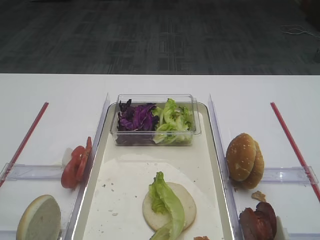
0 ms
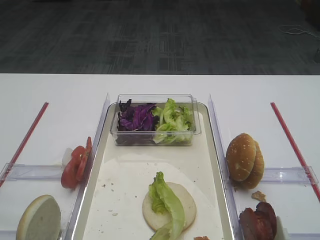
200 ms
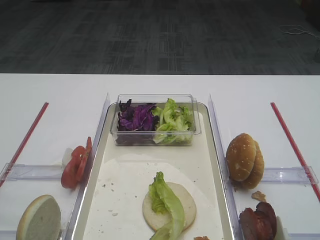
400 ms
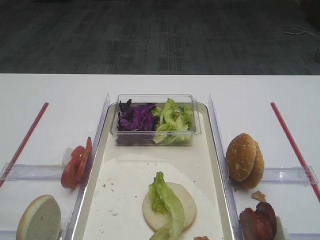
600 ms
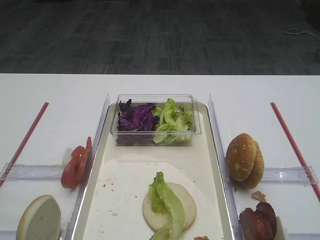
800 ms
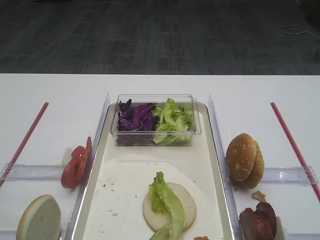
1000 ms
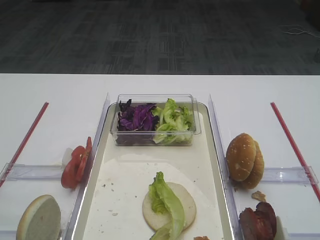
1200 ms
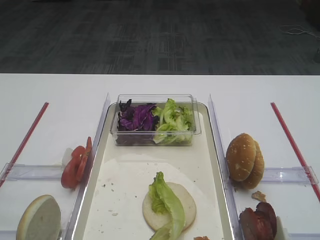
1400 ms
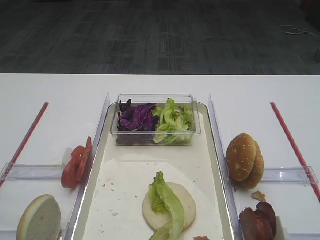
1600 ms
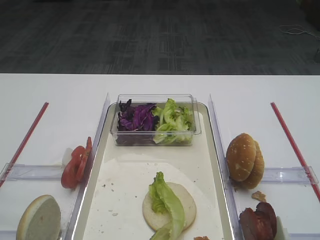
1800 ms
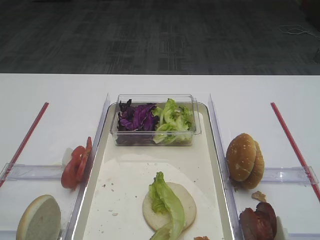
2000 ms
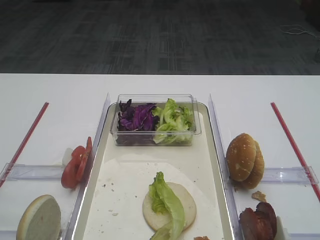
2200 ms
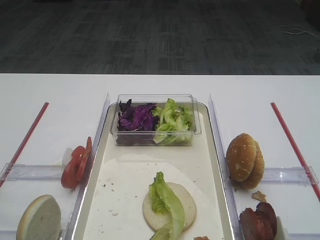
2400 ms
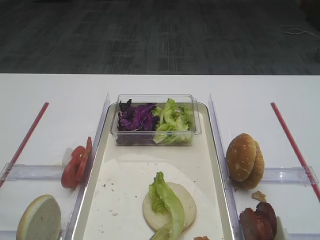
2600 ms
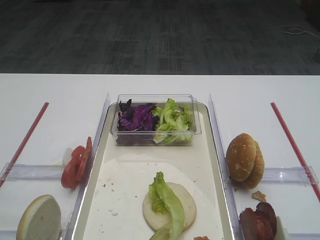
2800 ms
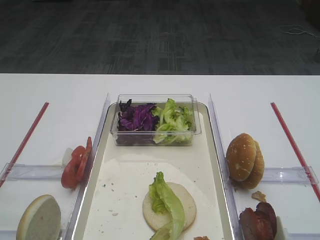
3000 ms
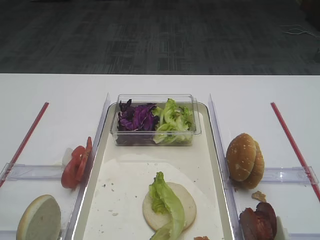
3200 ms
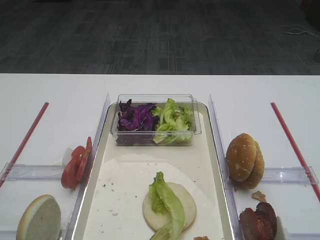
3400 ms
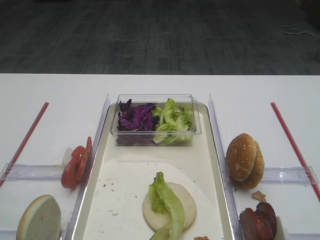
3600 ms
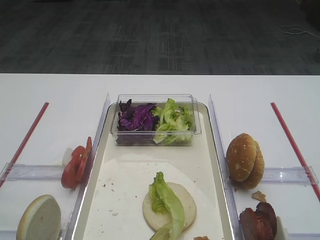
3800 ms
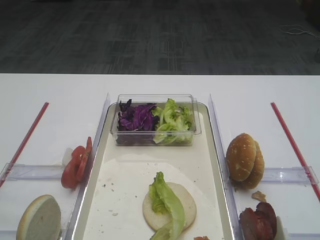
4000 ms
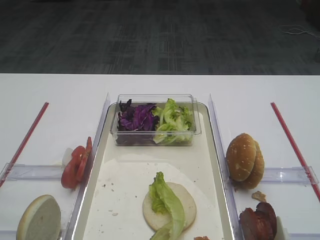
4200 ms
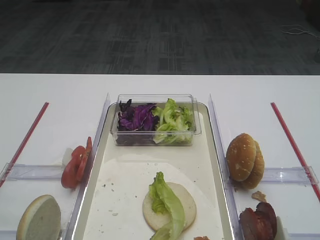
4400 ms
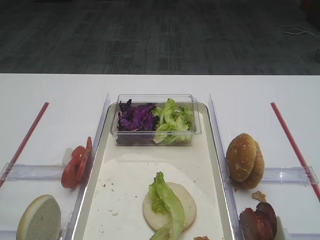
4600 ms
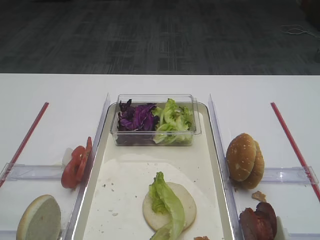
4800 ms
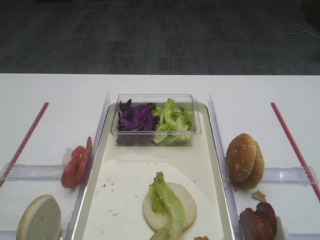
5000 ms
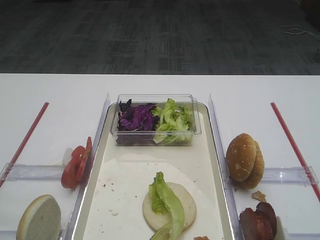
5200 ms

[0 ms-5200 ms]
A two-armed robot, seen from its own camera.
1800 ms to 5200 ms: The two grippers keep their place.

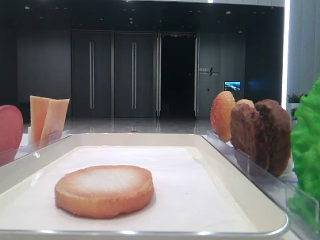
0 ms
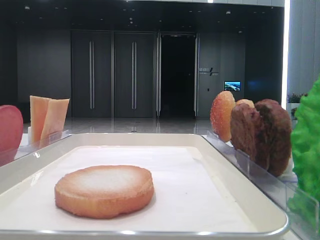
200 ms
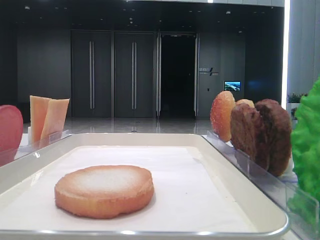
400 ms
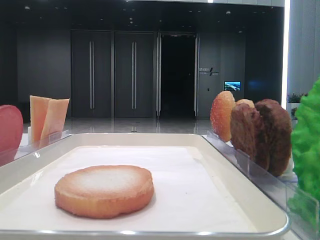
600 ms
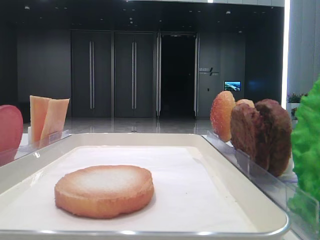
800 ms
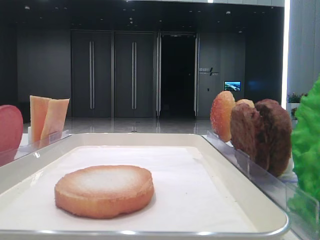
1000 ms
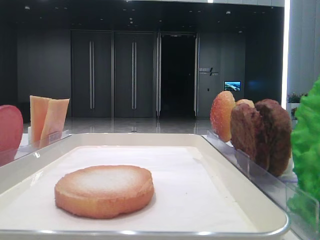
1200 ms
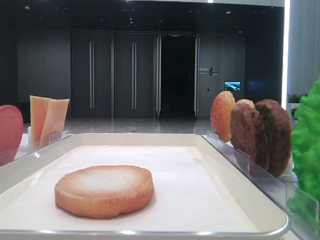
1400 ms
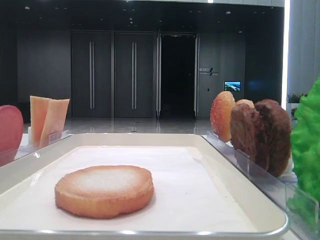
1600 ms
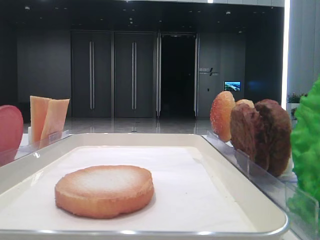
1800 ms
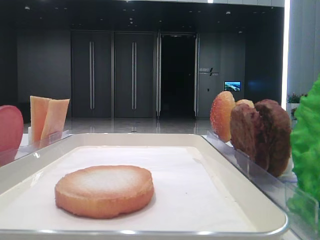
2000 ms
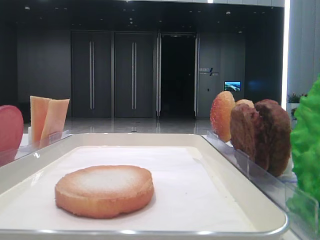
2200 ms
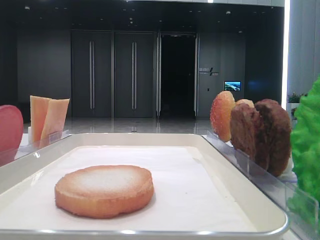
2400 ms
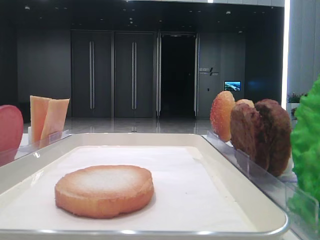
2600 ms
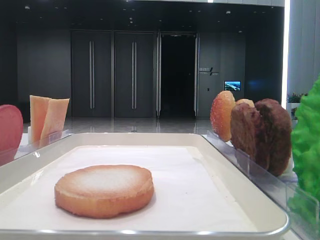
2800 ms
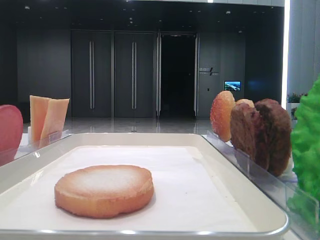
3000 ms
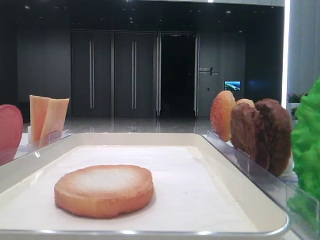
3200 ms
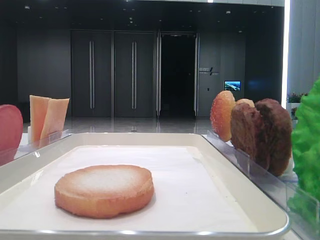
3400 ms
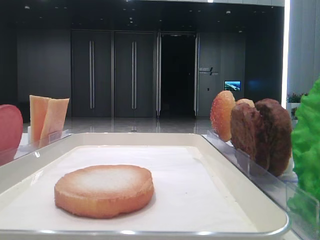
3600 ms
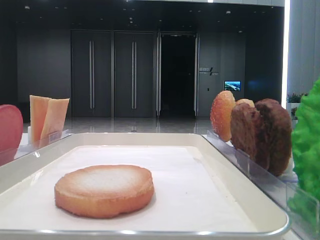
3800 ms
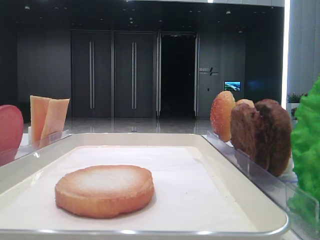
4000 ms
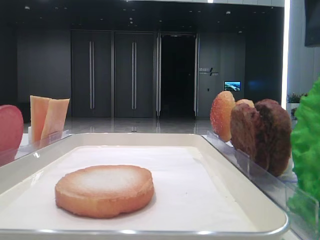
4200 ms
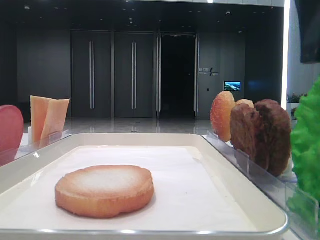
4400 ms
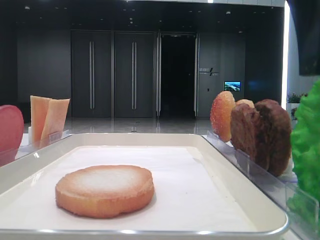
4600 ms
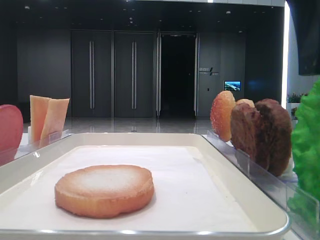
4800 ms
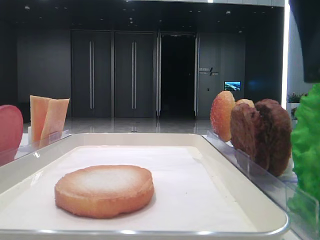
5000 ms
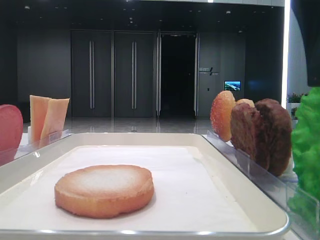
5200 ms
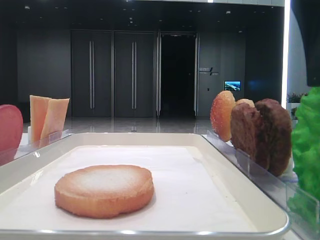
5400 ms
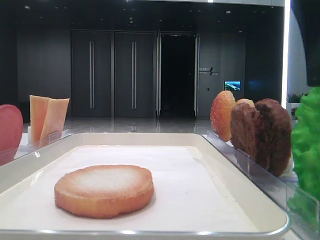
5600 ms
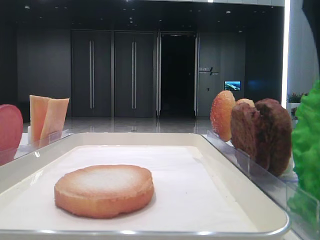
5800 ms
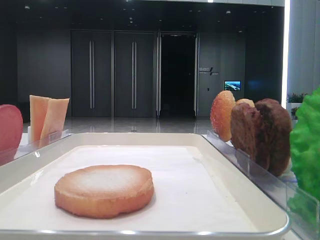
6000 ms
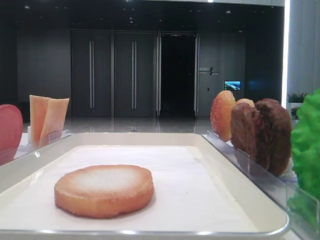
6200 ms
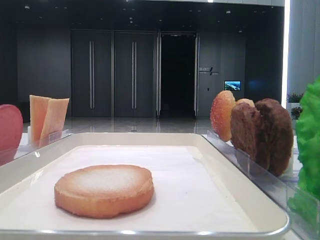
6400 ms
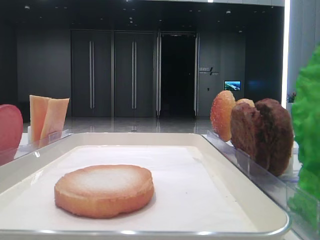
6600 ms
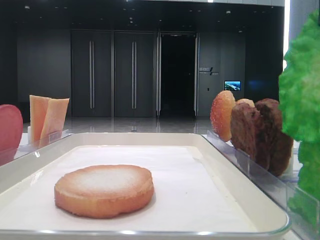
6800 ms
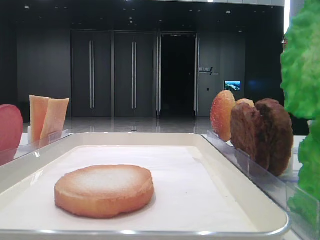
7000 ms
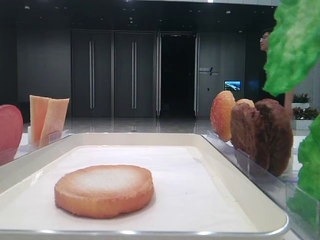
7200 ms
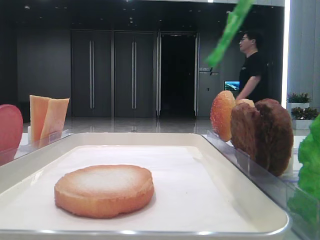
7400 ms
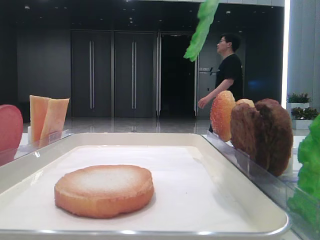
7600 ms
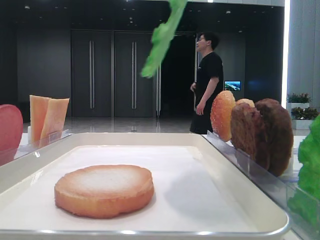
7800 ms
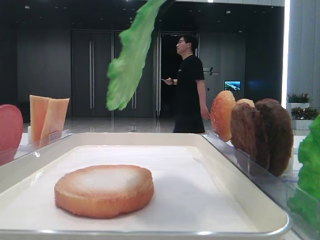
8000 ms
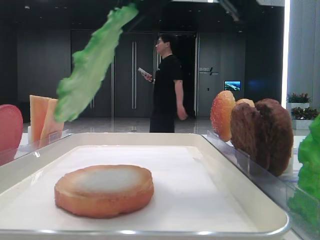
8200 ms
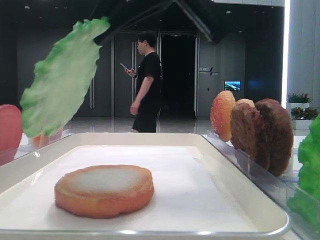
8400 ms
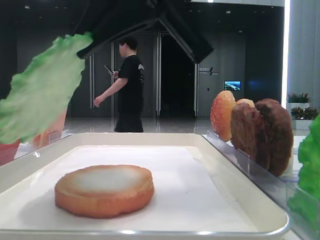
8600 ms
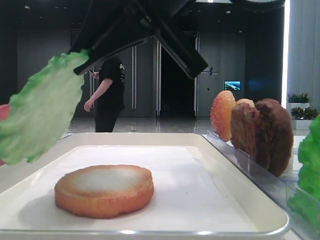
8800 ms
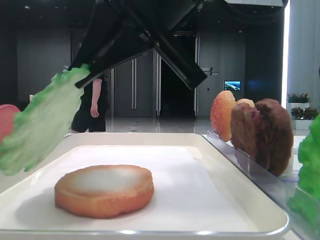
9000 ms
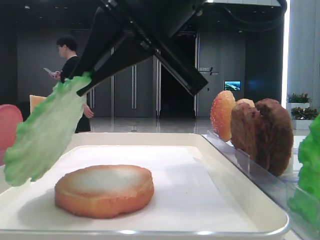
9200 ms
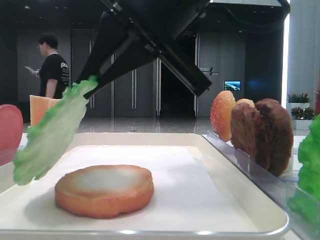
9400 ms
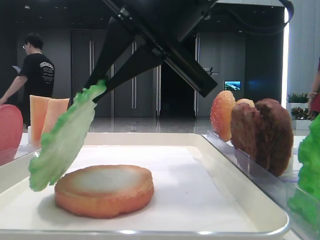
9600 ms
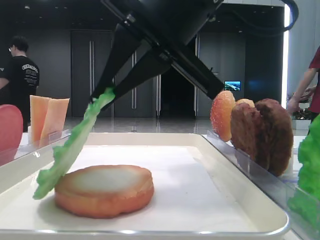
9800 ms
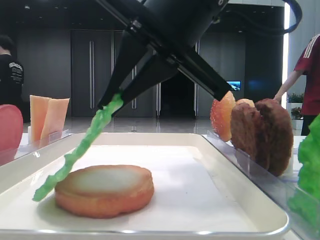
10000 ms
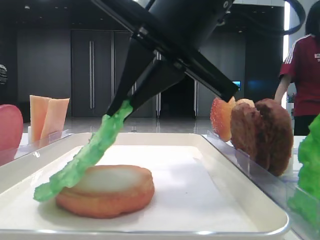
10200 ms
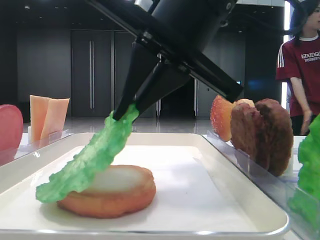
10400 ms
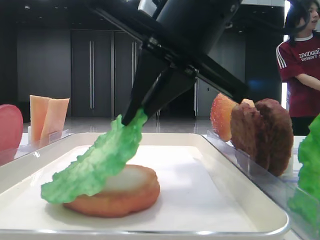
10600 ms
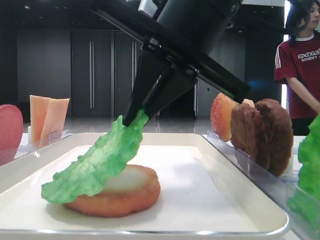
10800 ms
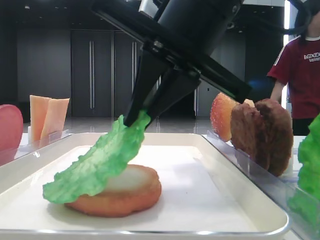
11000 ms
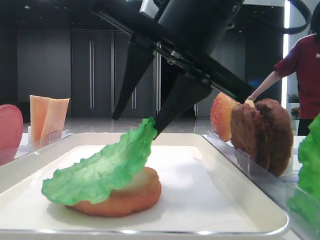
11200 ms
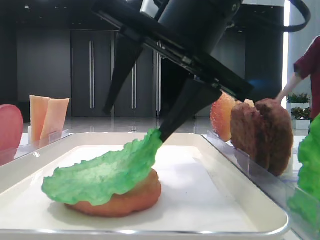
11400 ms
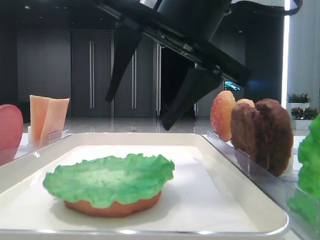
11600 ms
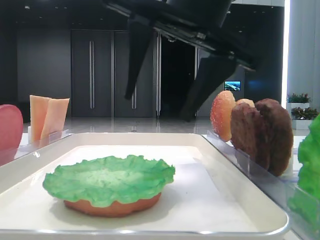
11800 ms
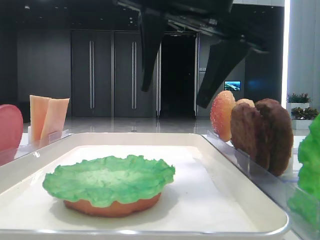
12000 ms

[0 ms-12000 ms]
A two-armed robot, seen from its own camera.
Step, 0 ms to 6000 ms: Grab the lettuce leaf with the right hand.
Step, 6400 ms to 11400 ms: Place the lettuce leaf on the bottom bread with the right hand.
3000 ms to 4400 ms: The right gripper heads to the left, covering some 10 cm.
4400 ms to 6000 ms: The right gripper closes.
6000 ms to 7600 ms: The right gripper heads upward, covering roughly 10 cm.
7600 ms to 9000 ms: The right gripper heads to the left and downward, covering some 15 cm.
10400 ms to 12000 ms: The right gripper opens.

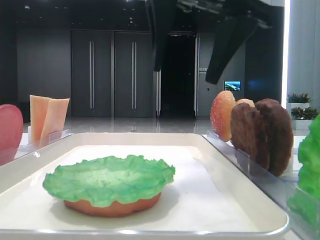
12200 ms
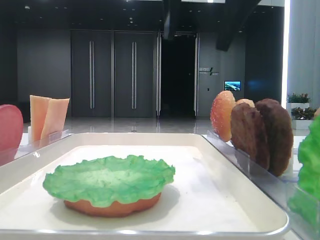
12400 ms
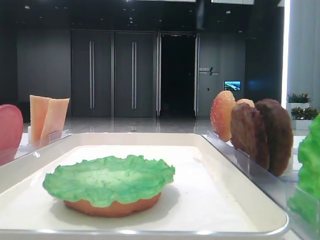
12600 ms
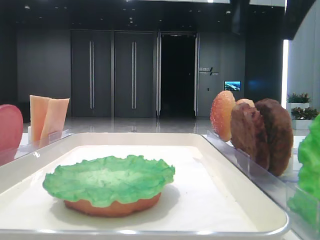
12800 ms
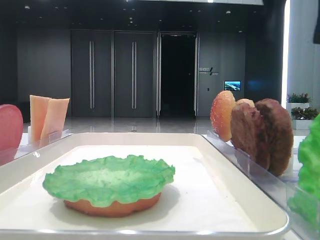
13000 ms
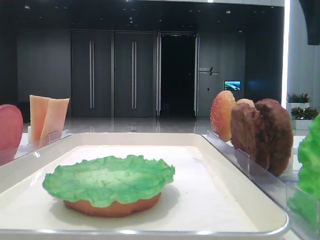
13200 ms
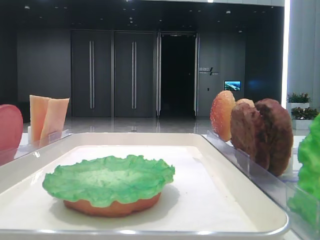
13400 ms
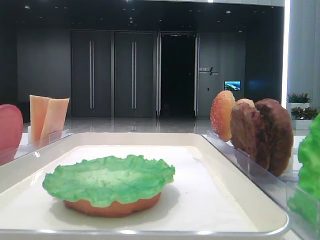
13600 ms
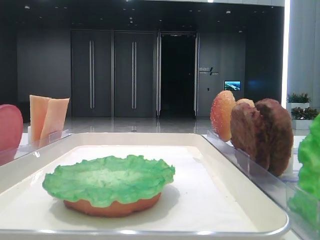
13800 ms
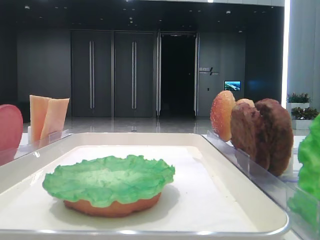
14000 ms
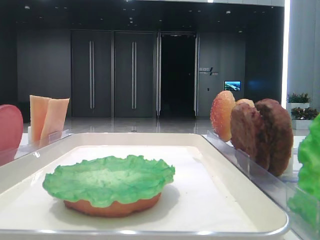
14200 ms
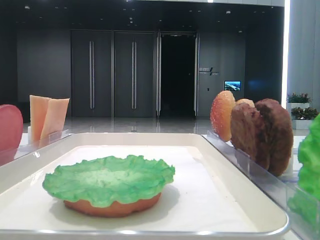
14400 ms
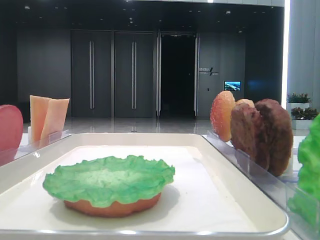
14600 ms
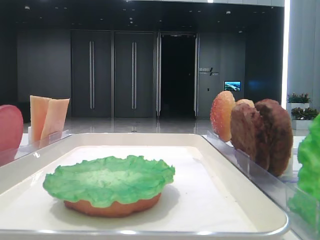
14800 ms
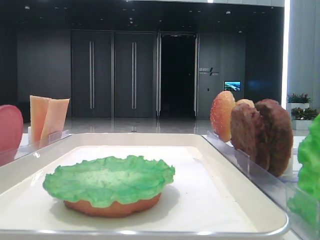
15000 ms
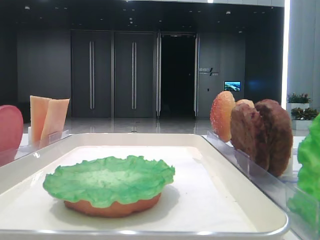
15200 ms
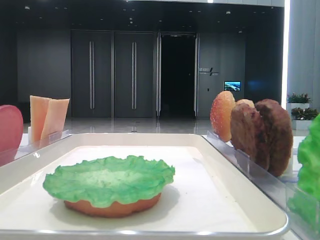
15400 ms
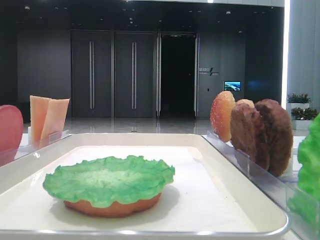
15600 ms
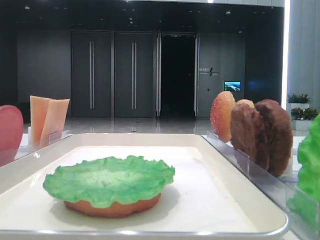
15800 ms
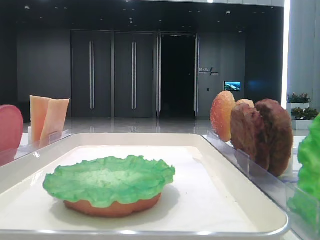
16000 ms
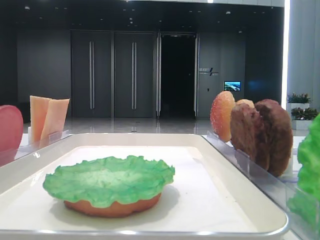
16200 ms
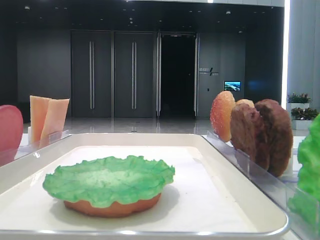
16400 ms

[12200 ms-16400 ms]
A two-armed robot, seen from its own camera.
12200 ms to 13600 ms: The right gripper shifts about 25 cm to the right.

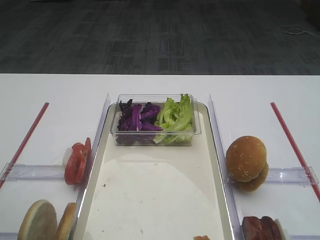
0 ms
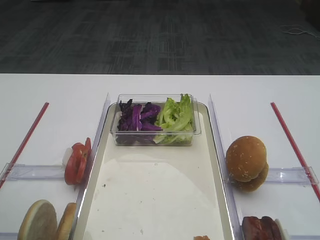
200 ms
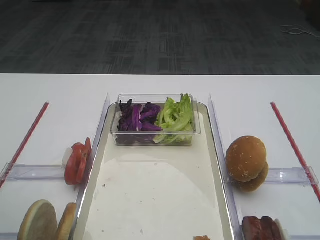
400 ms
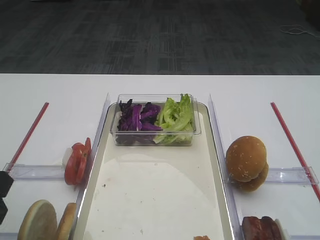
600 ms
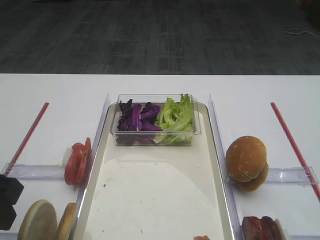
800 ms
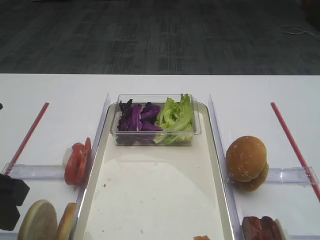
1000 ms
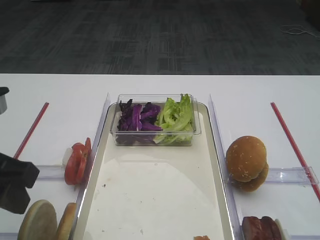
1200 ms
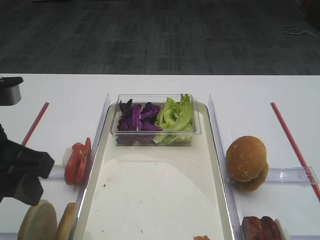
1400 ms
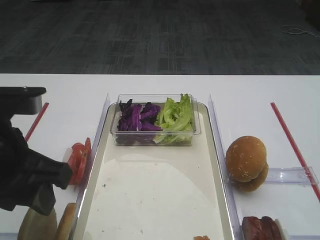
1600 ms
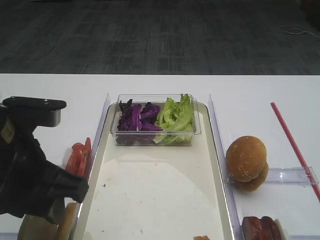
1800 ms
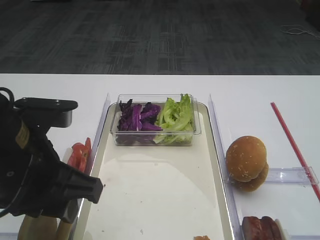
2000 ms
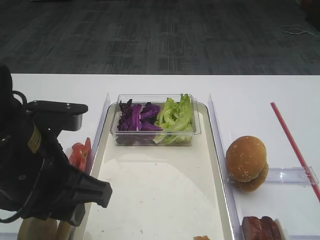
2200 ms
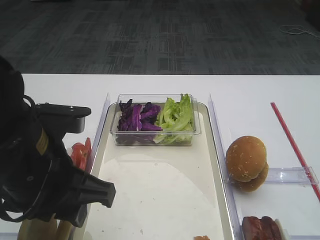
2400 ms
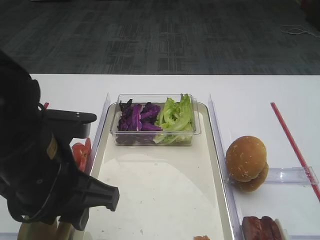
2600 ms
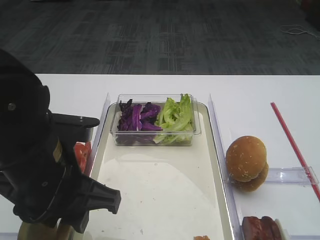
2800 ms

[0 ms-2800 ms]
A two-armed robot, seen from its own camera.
0 ms to 1400 ms: The left gripper travels to the right by some 5 cm.
1400 ms to 2800 ms: The left gripper is displaced to the right and downward by some 10 cm.
